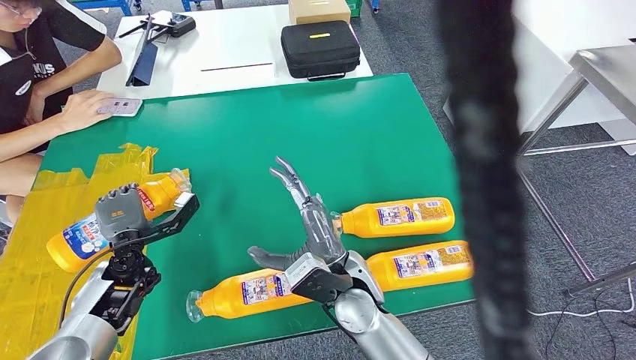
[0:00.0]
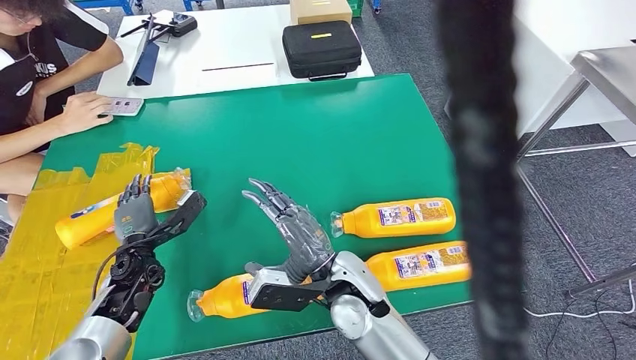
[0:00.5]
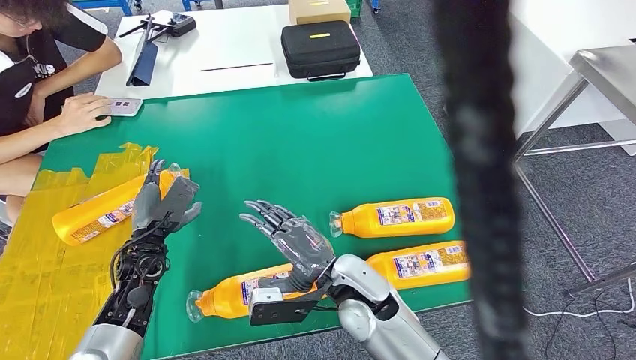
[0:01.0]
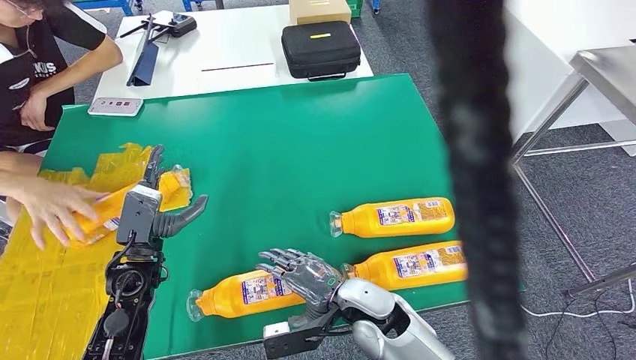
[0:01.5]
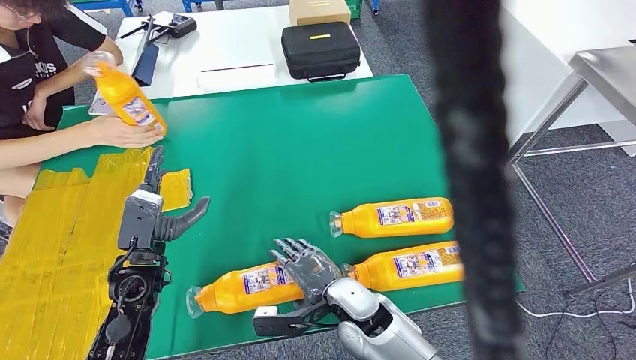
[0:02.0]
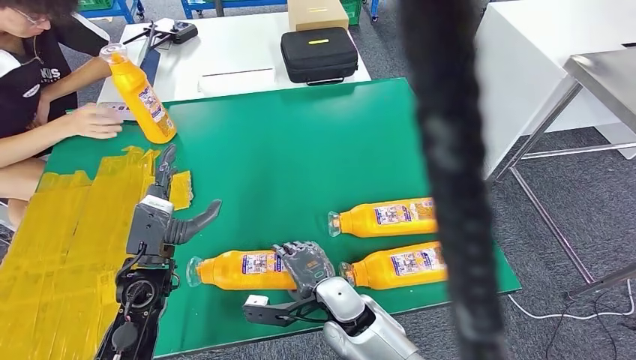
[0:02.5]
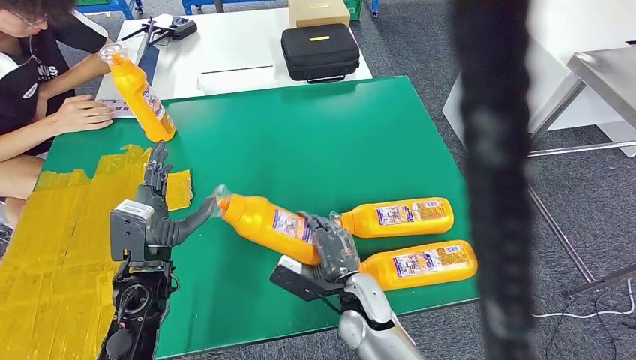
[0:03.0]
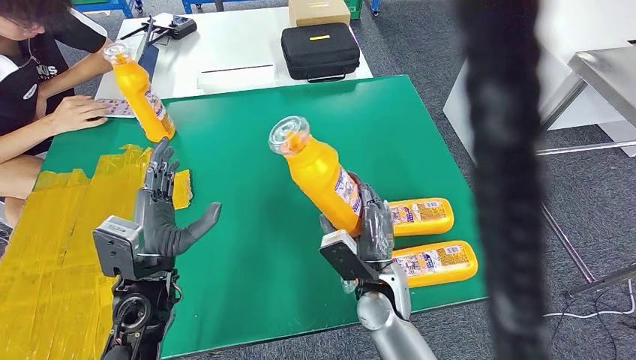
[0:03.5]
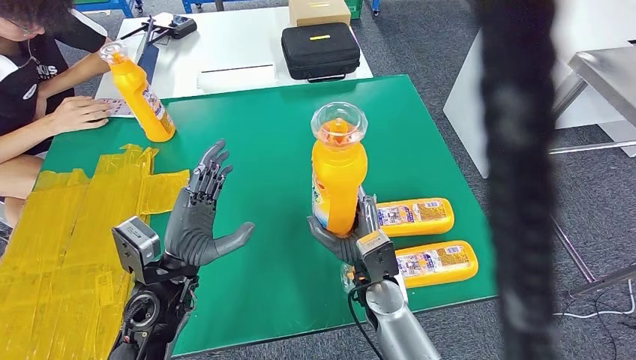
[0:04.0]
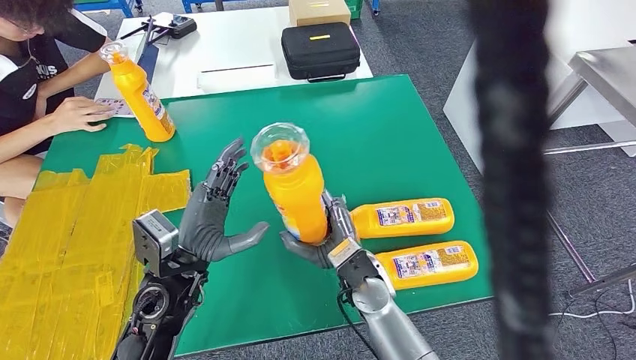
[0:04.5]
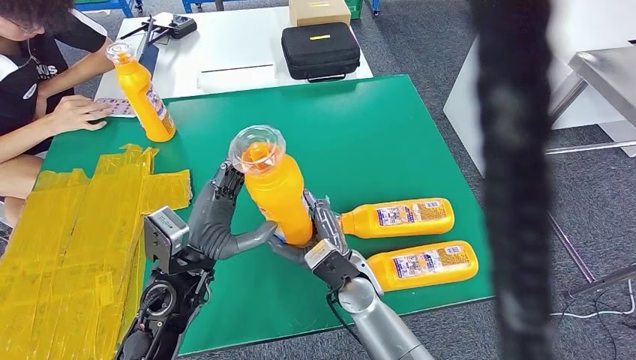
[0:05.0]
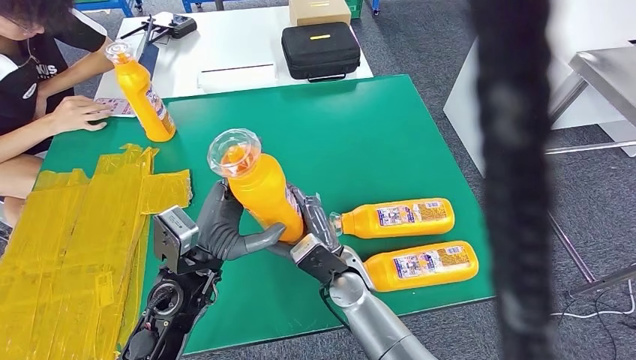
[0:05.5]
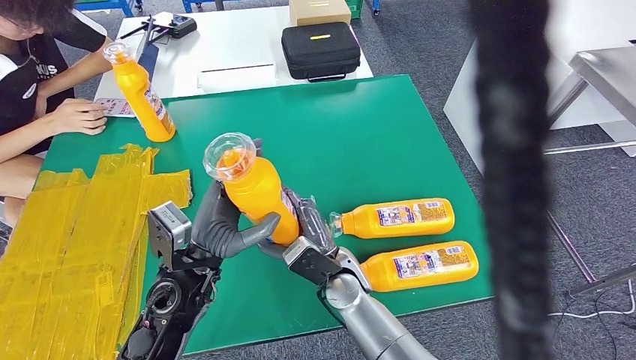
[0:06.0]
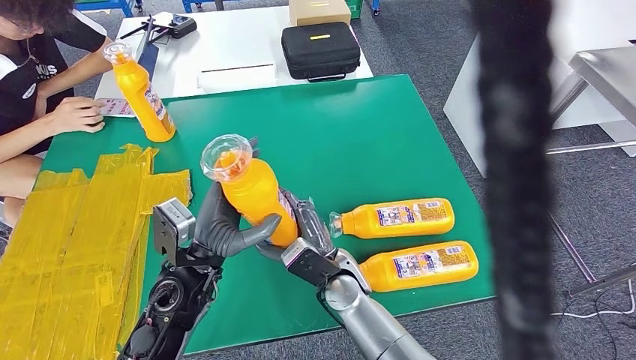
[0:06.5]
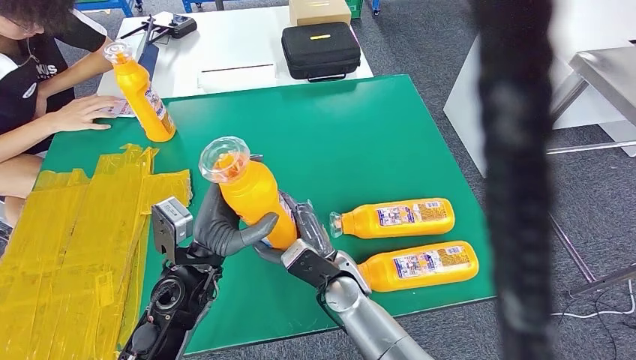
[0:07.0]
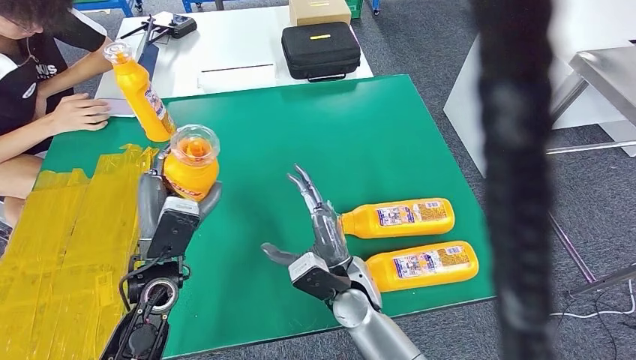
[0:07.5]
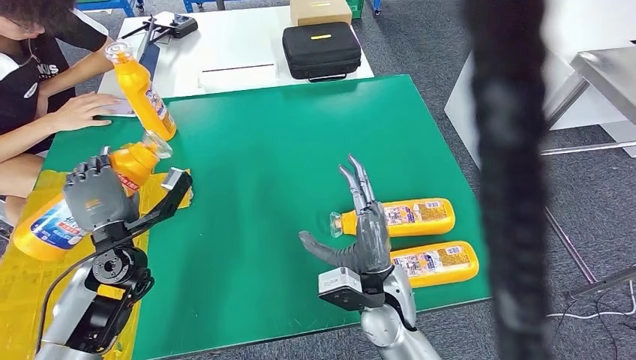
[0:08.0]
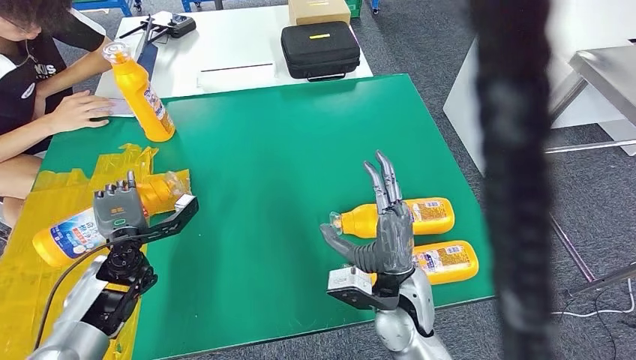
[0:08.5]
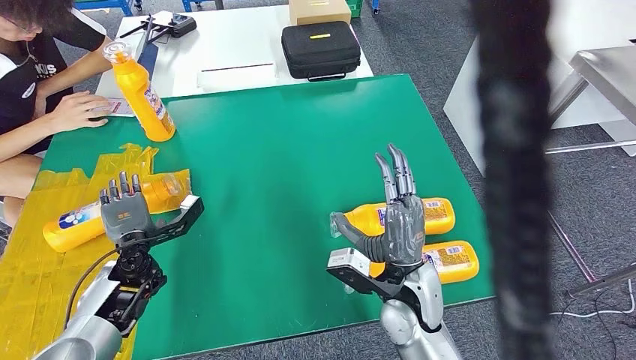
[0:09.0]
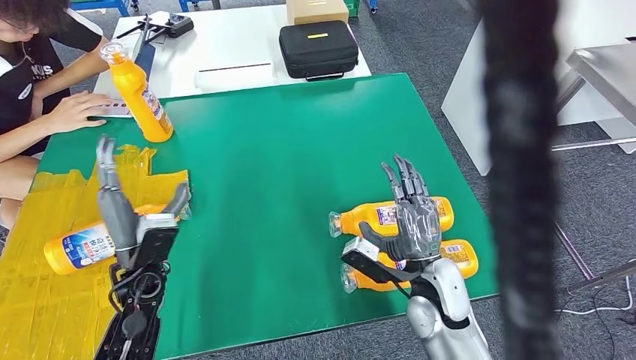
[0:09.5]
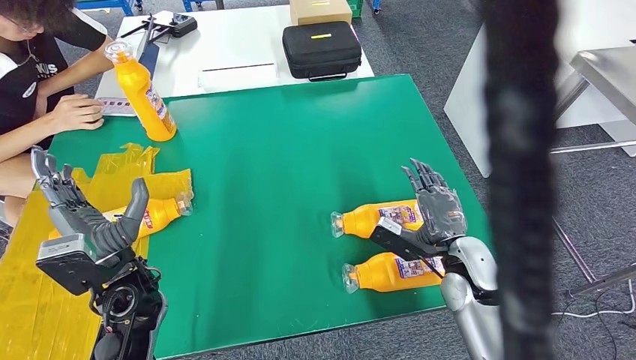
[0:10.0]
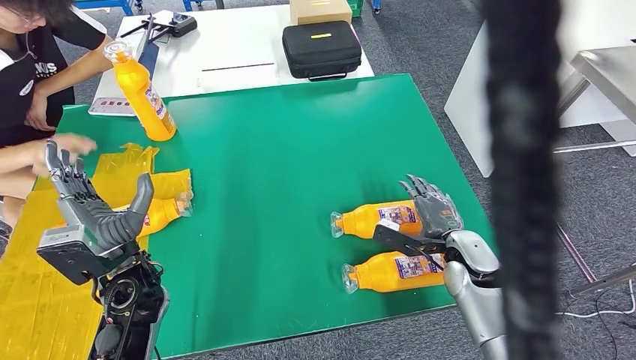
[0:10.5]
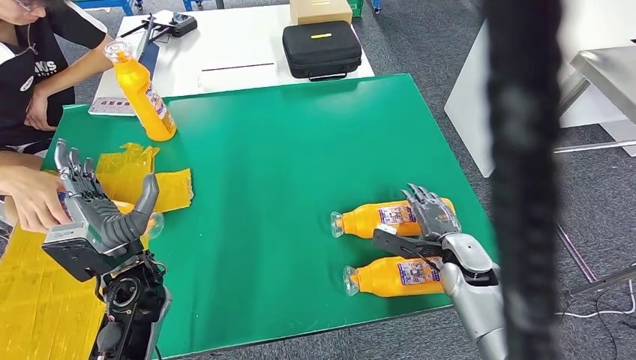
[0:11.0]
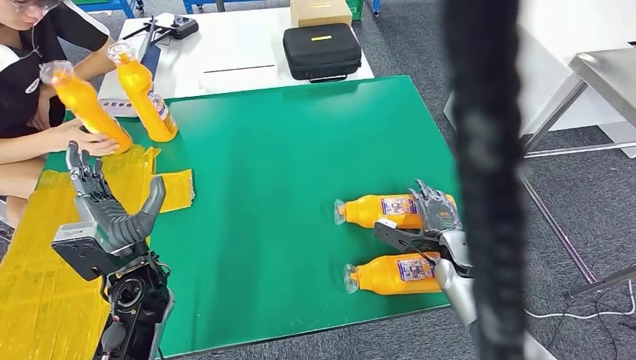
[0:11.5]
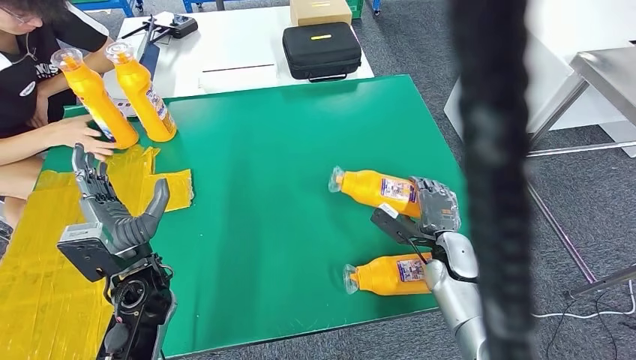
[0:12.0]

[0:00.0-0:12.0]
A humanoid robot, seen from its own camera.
Step, 0:00.5 to 0:03.5: Pick up the bottle from the table.
Step, 0:04.0 to 0:08.5: Flip the bottle to face forward.
0:04.0 to 0:06.0: The right hand moves to the left, approximately 5 cm.

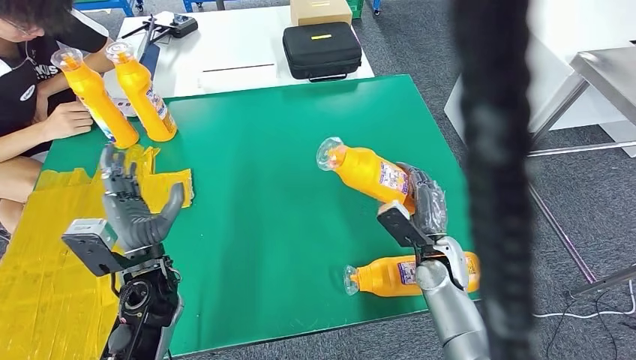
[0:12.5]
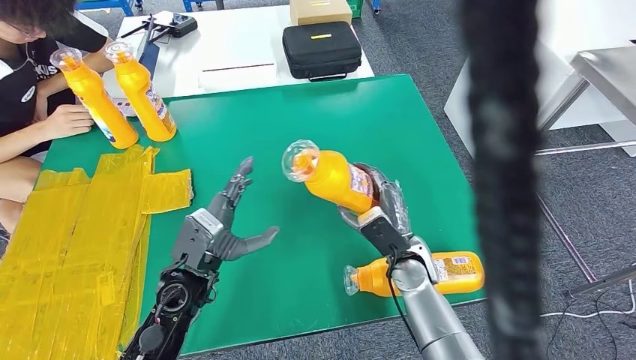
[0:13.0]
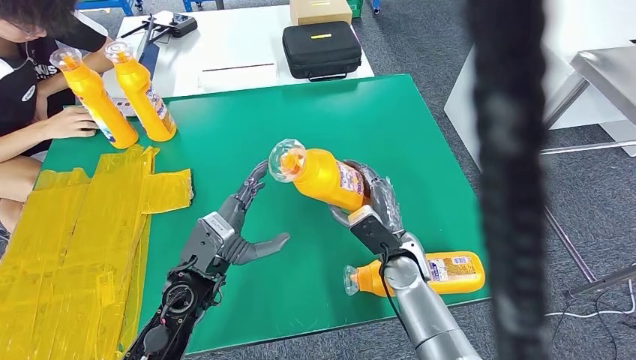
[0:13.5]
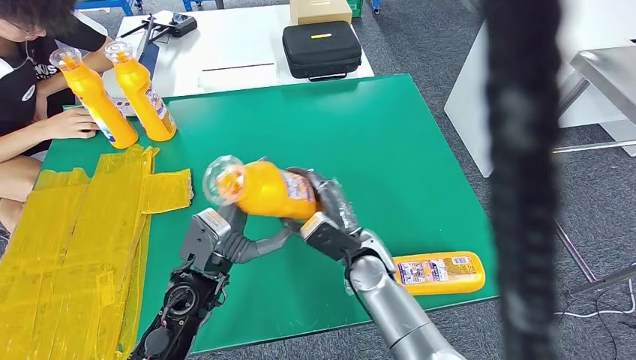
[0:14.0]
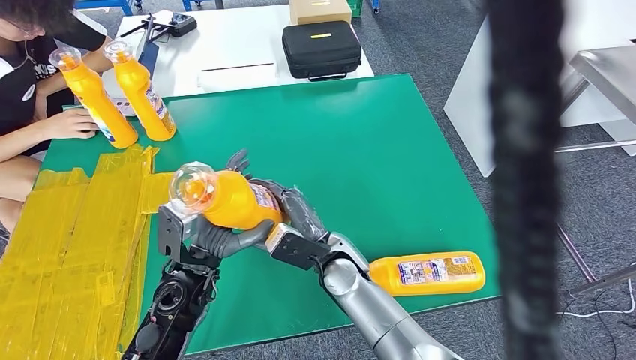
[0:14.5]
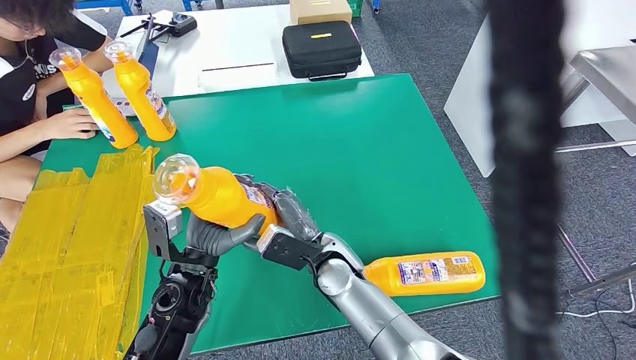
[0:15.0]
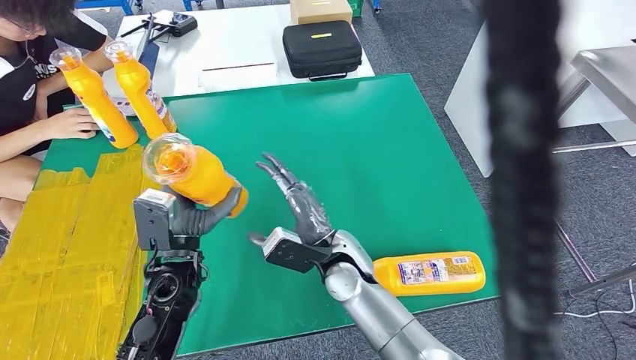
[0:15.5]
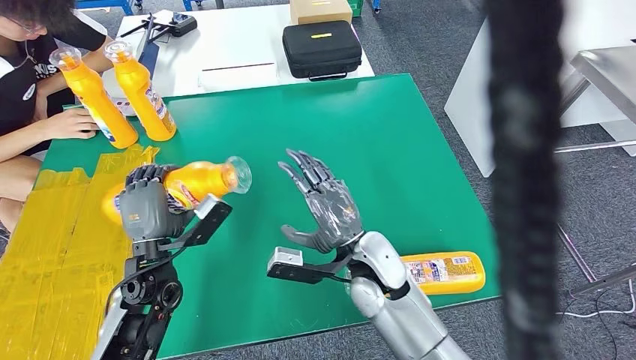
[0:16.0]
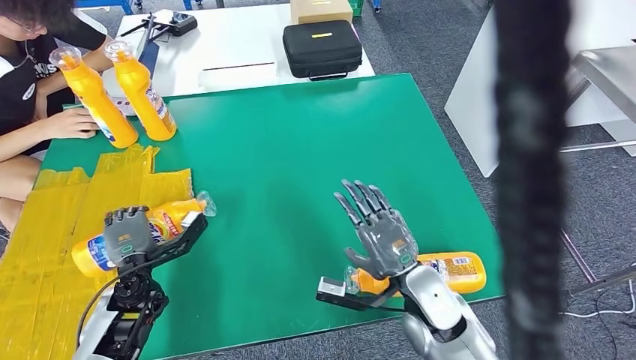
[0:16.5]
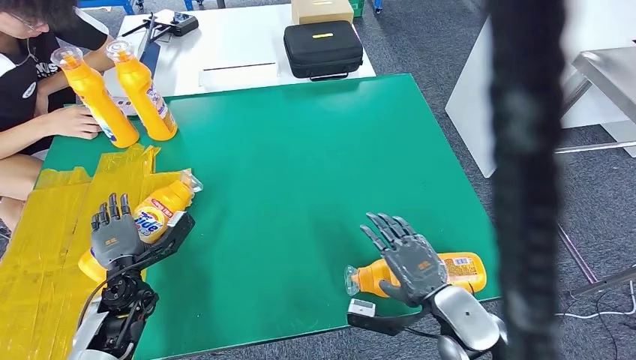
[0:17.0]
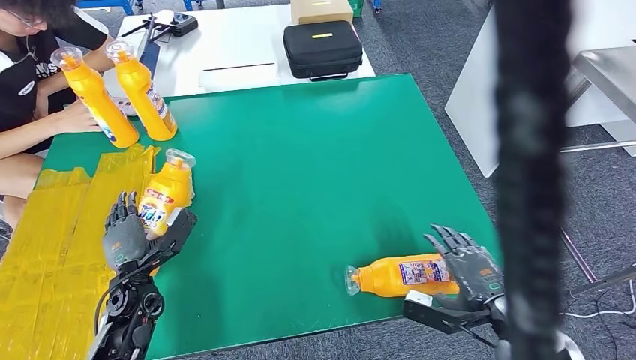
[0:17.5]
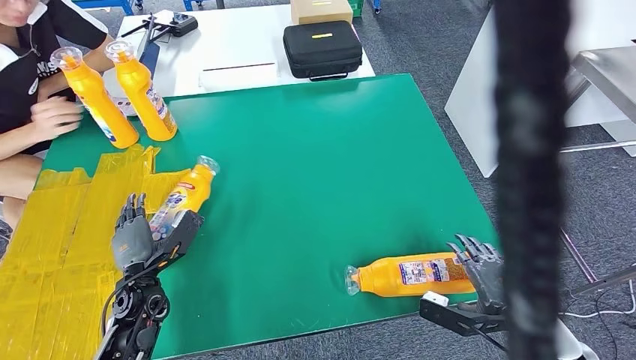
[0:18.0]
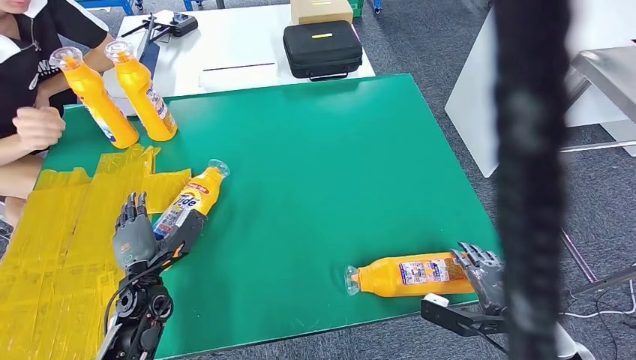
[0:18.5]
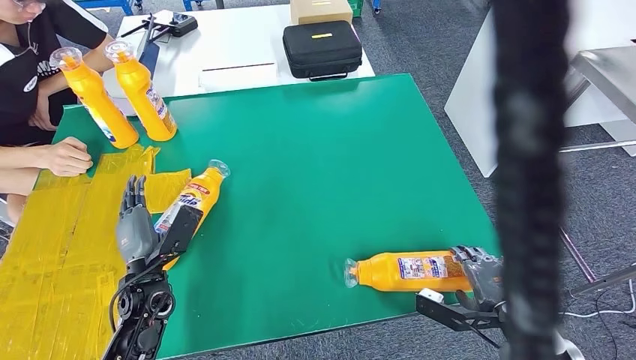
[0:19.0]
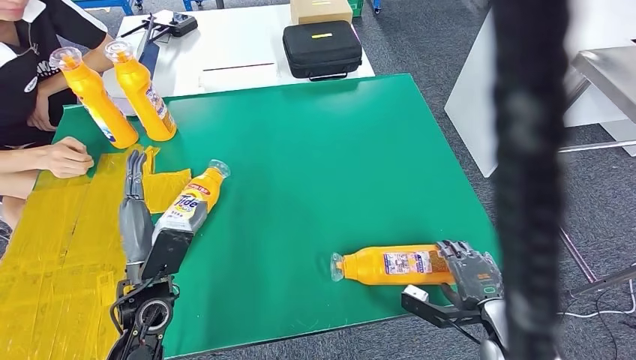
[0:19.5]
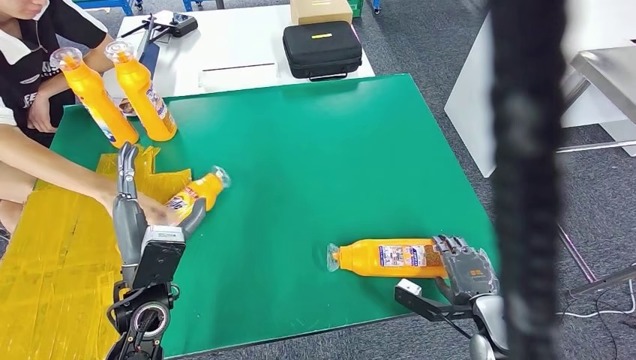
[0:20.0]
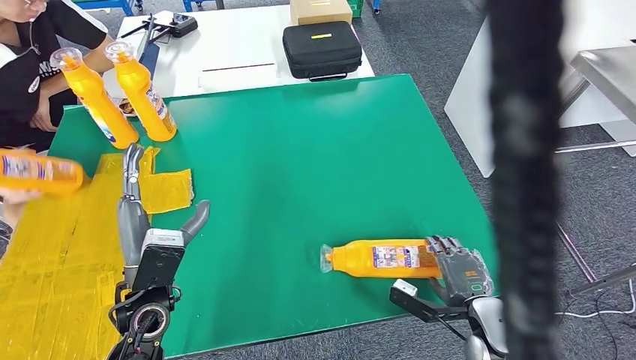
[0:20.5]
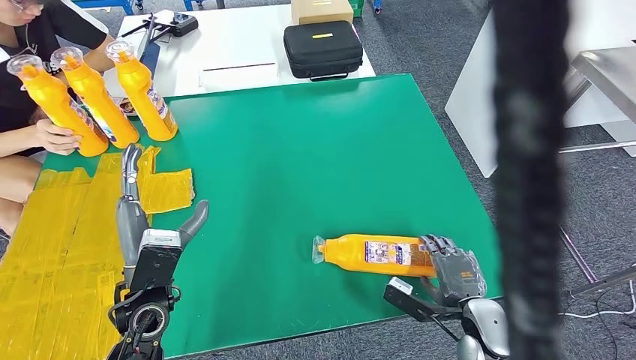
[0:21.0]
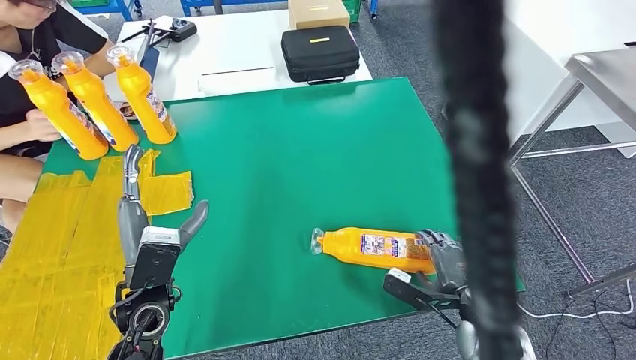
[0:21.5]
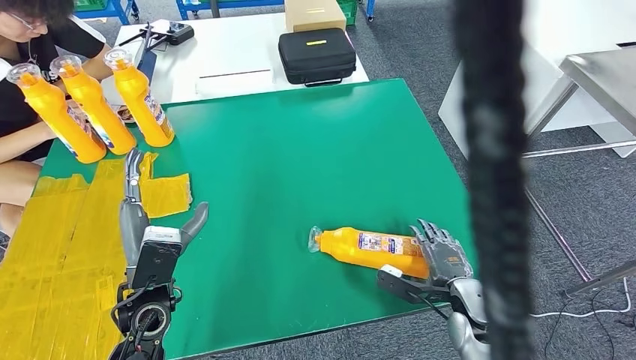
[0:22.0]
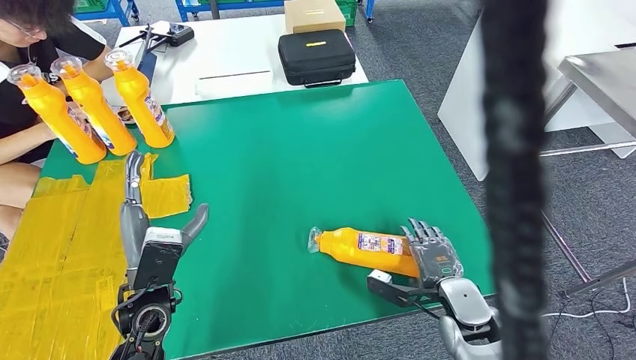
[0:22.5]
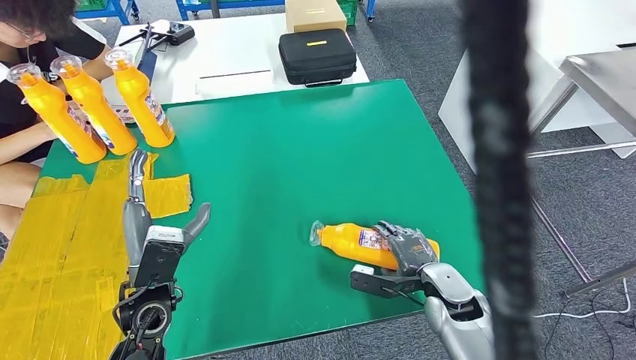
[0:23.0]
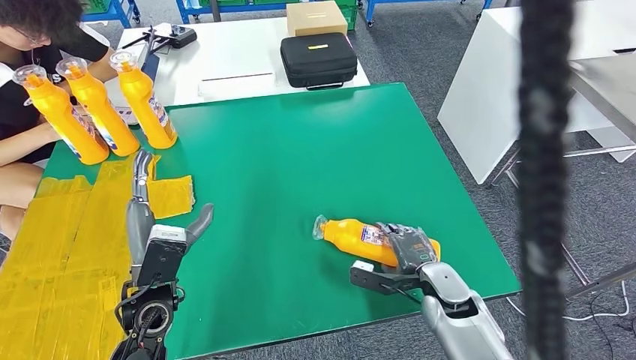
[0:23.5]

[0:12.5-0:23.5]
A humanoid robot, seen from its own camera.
Step, 0:14.0 to 0:17.0: Flip the bottle to face forward.
0:14.5 to 0:16.0: The right hand changes place by some 5 cm, while the left hand shifts approximately 5 cm to the left.
0:18.0 to 0:20.0: The right hand ends up approximately 5 cm from where it was. Meanwhile the left hand is displaced upward and to the right by roughly 10 cm.
